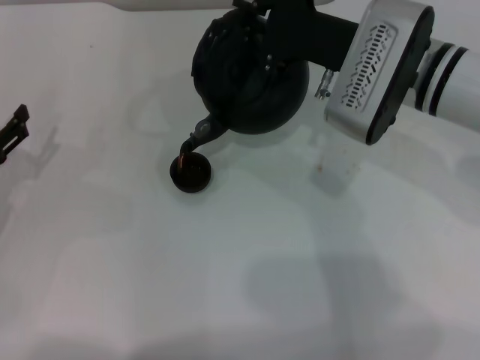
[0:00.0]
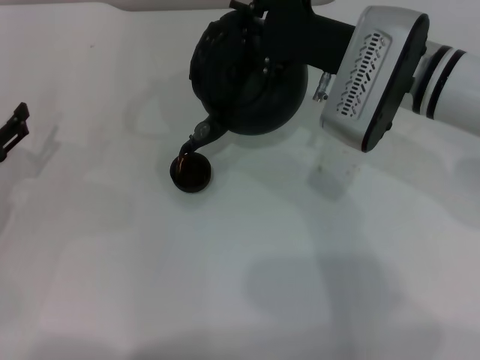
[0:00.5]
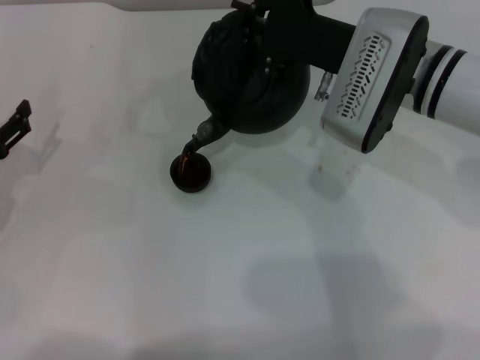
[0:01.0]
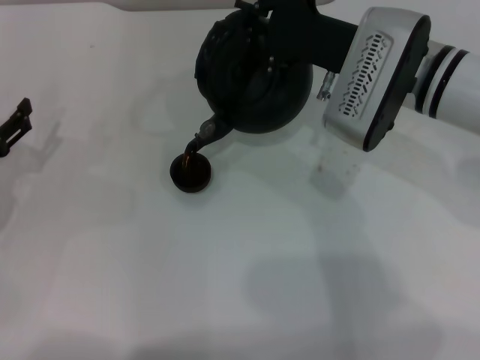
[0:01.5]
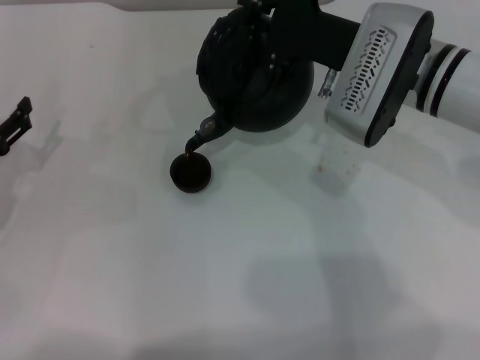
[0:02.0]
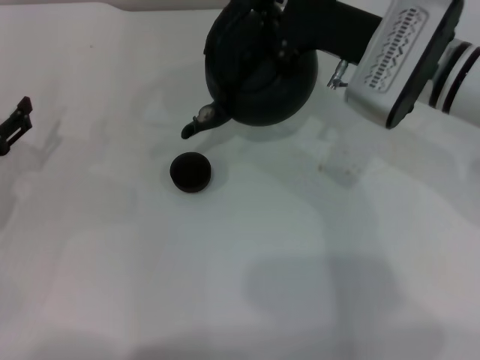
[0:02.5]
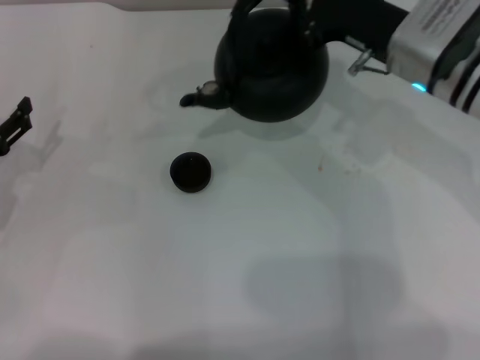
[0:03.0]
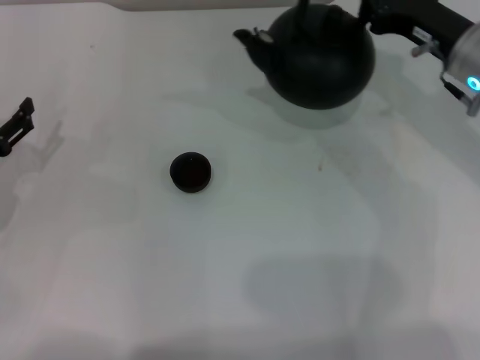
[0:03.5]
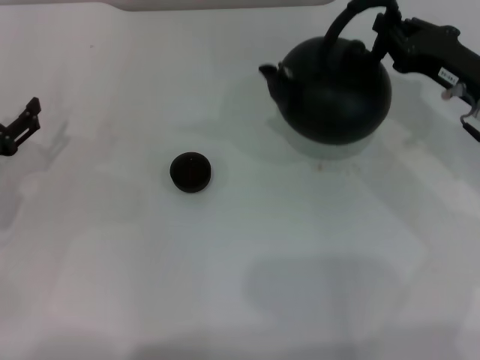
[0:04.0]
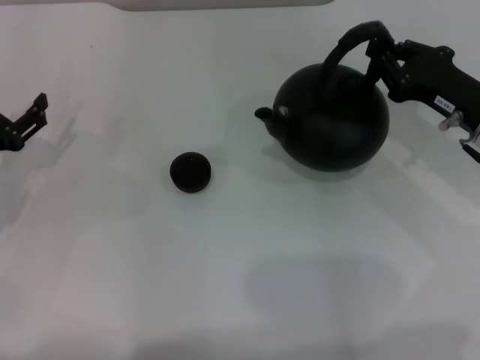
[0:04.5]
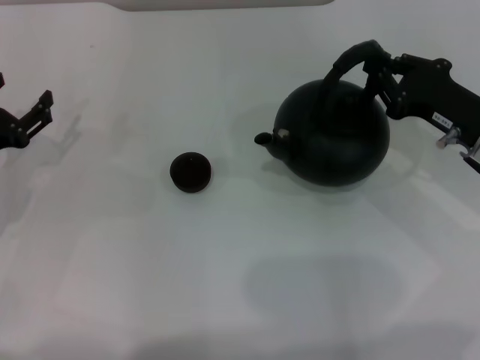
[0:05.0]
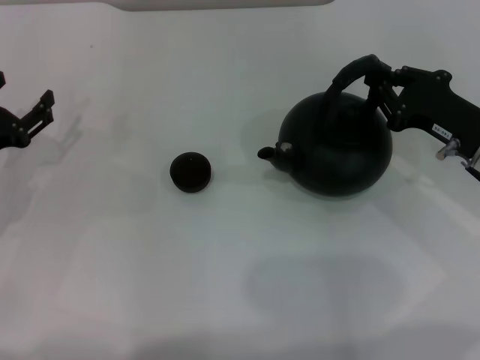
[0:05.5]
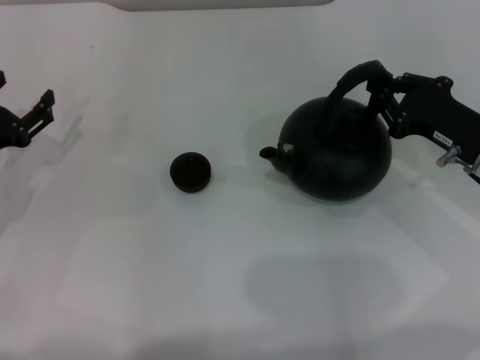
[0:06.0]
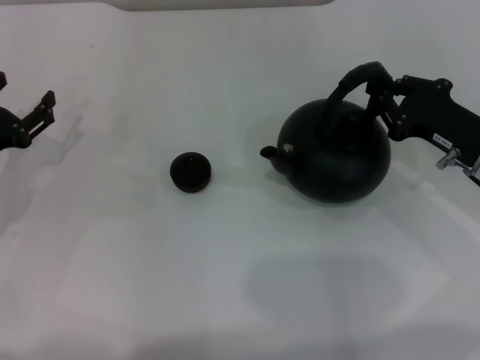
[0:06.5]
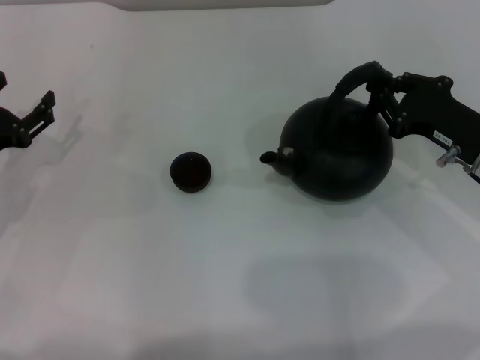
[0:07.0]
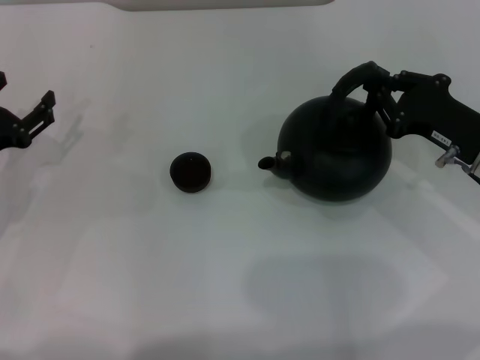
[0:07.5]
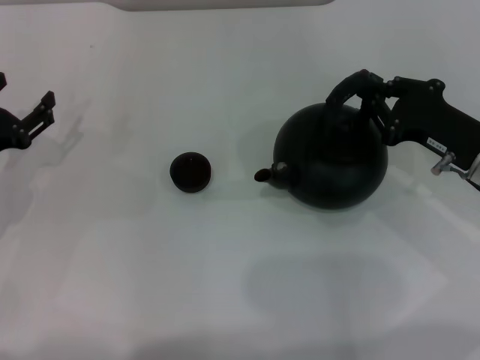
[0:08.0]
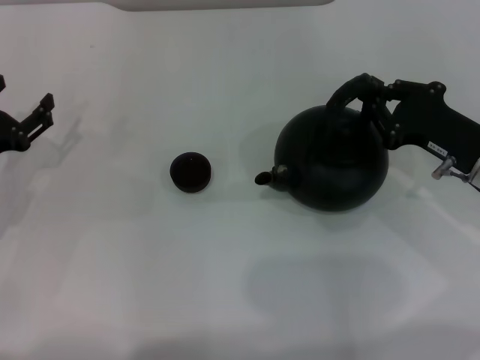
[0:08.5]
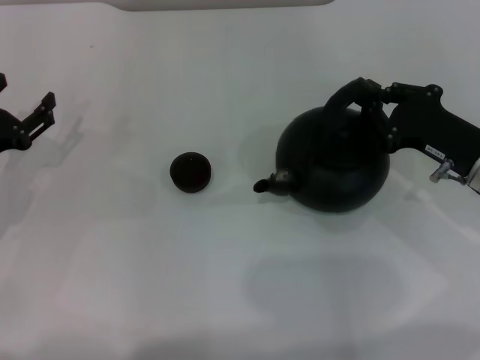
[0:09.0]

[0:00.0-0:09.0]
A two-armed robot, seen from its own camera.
Task of the whole recording: Grasp the handle of the teapot with one hand and pour tea into the teacup.
Step, 0:00.0 to 0:02.5: Pour tea into the teacup with the right gripper.
0:00.0 to 0:02.0: The two grippers keep their place.
0:02.0 to 0:04.5: The right gripper goes some 15 cm to the right and downward.
0:04.5 to 0:09.0: The grippers make only small movements.

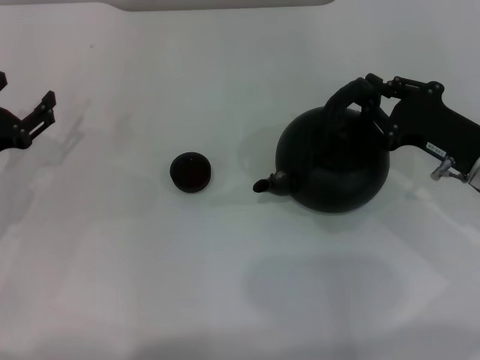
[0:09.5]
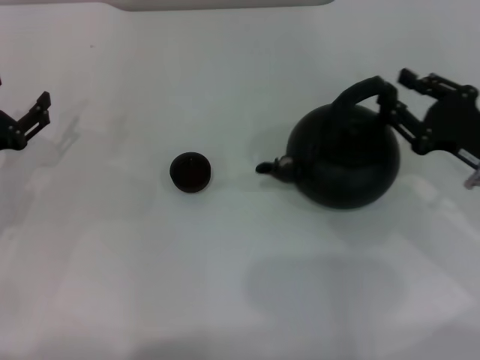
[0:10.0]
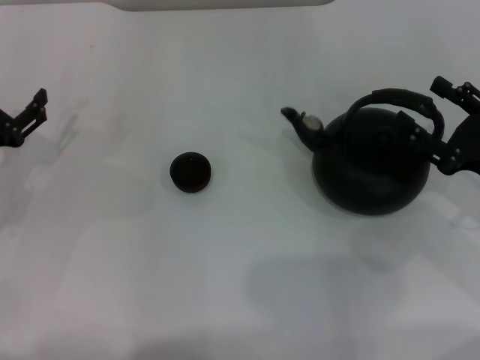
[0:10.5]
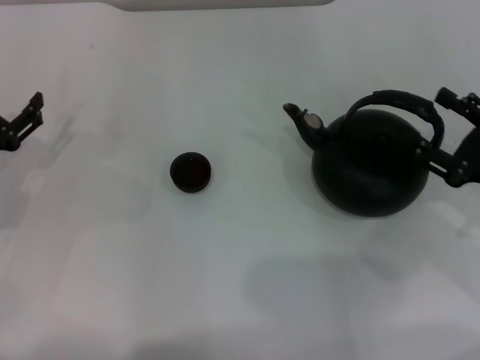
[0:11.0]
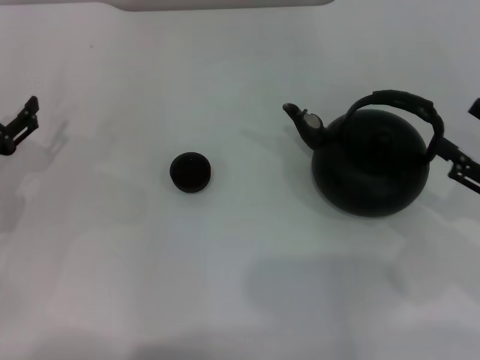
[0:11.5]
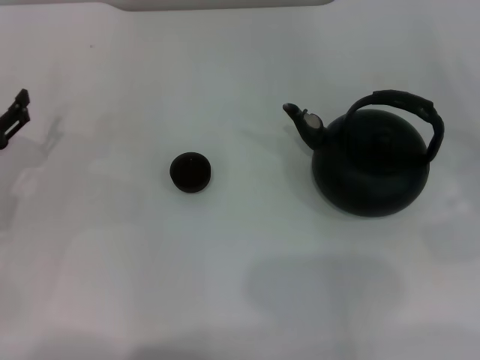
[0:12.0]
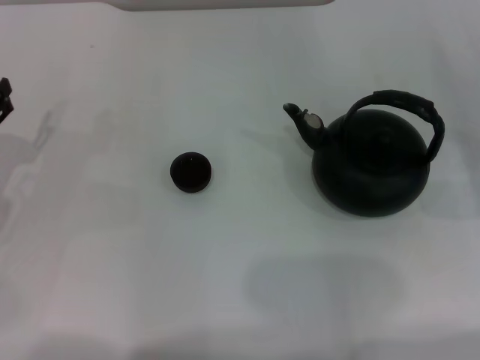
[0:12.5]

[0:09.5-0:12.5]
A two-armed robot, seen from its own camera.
Task of the whole recording: Grasp the handle of the teapot with one hand and pour tea into the teacup.
0:09.5 to 0:11.0: The right gripper moves backward and to the right, roughly 5 cm, and opens.
0:11.0 to 0:12.5: The right gripper travels to the right by roughly 10 cm.
